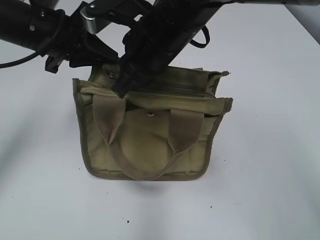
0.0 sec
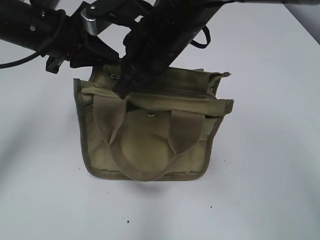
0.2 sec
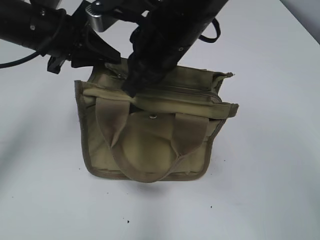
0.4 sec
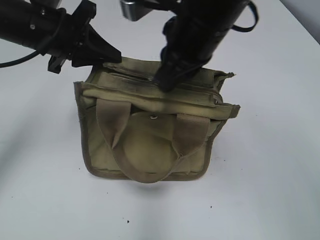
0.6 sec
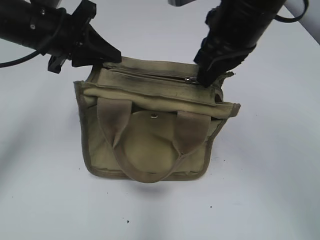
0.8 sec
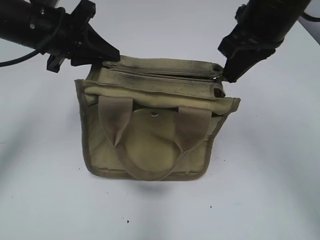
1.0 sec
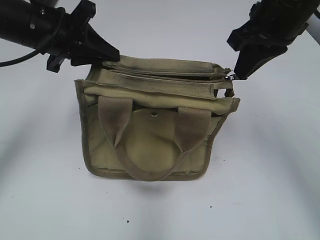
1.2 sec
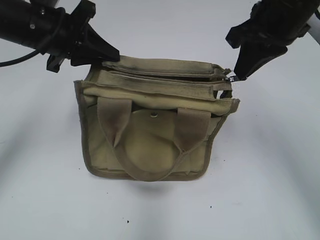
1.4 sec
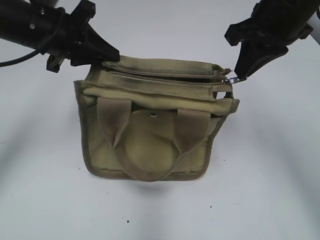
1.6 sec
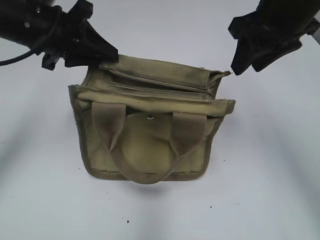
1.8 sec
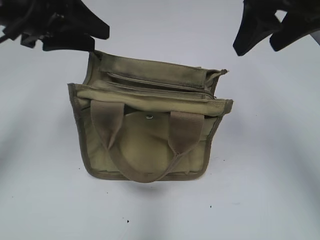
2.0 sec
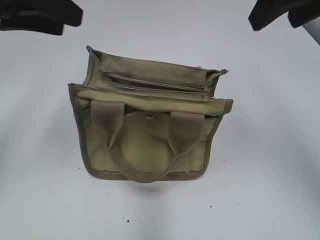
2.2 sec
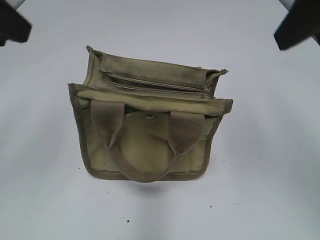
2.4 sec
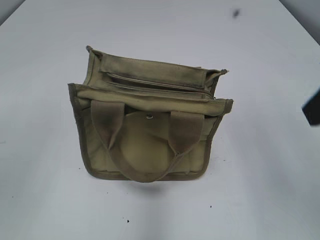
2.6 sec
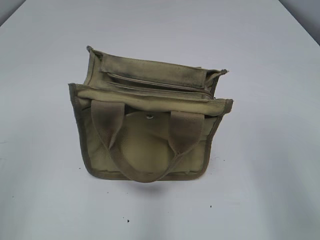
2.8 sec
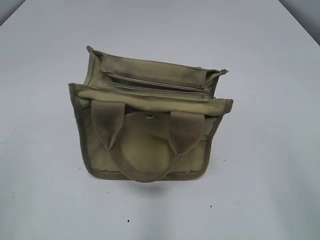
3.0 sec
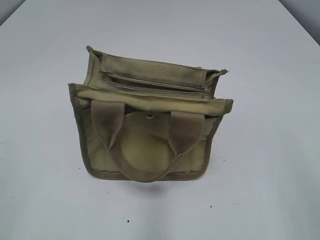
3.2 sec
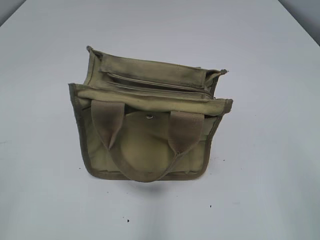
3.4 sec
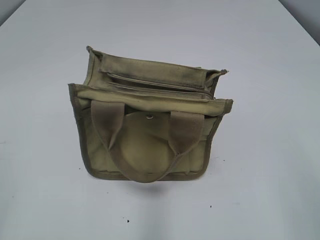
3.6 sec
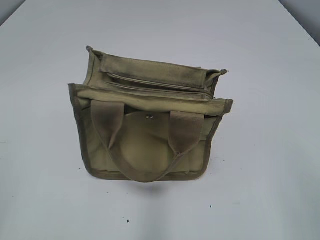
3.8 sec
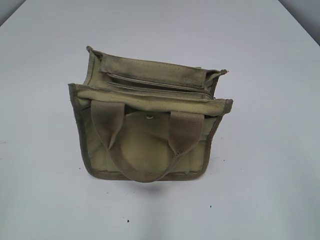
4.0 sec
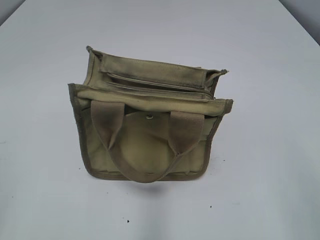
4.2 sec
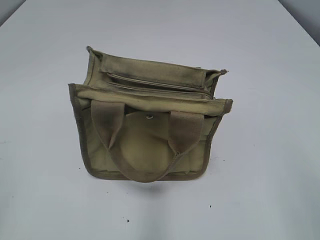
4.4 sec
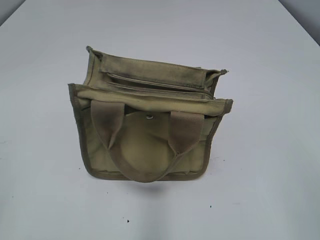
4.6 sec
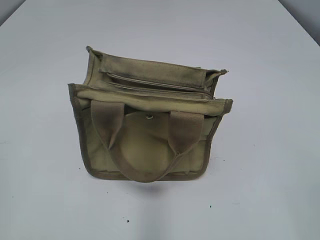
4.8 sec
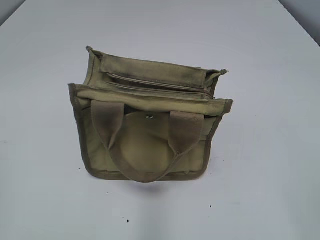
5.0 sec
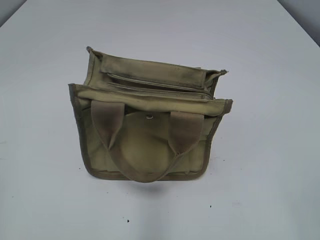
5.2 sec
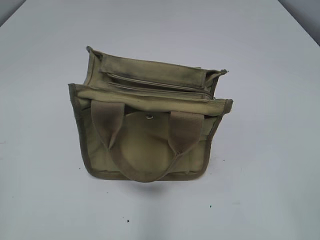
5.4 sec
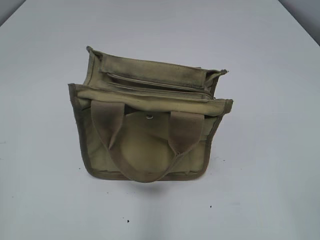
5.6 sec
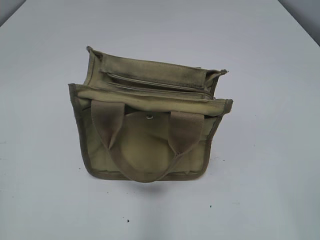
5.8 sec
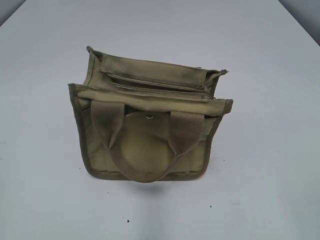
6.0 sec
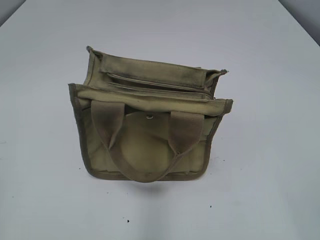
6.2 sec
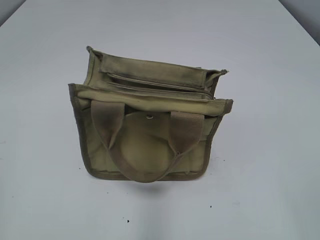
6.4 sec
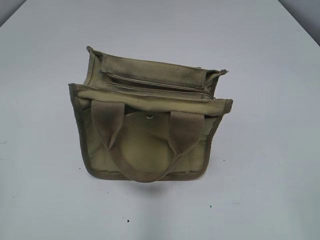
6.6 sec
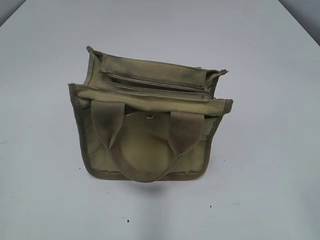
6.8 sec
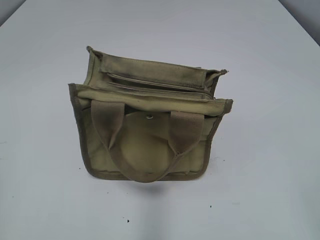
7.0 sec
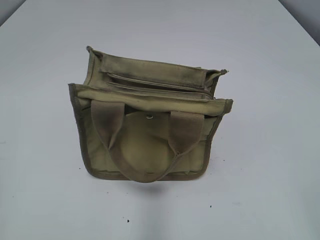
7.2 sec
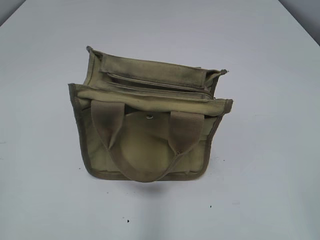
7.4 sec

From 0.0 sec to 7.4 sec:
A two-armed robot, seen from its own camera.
Step, from 1.8 sec to 2.0 sec: Hold the bag with your left hand.
From 0.0 sec to 1.4 sec: The right gripper travels to the right by about 15 cm.
From 1.4 sec to 3.0 sec: The right gripper moves backward, about 25 cm, and opens. The left gripper goes roughly 30 cm backward and to the left, and opens.
